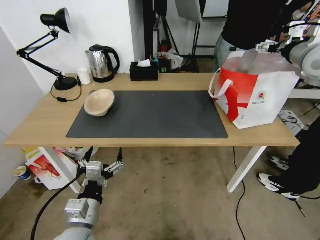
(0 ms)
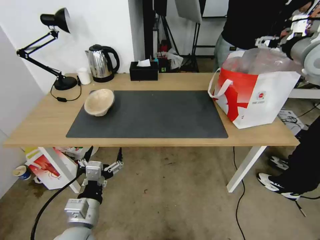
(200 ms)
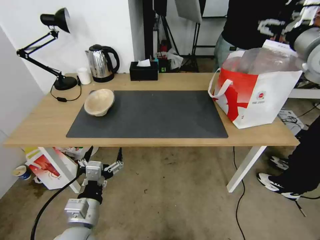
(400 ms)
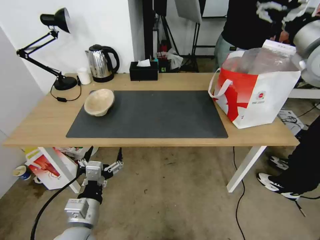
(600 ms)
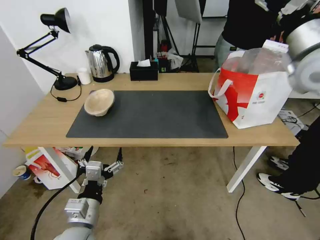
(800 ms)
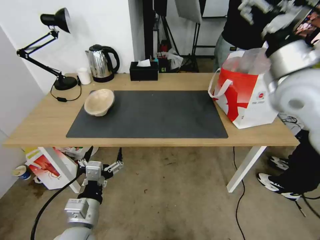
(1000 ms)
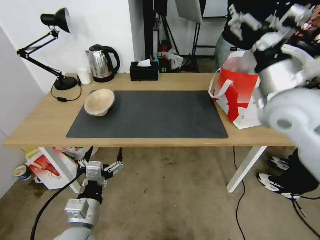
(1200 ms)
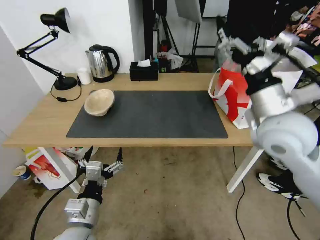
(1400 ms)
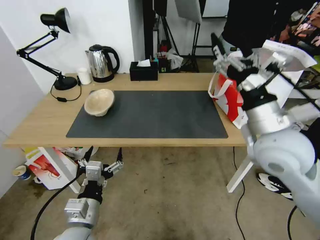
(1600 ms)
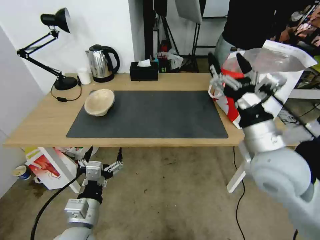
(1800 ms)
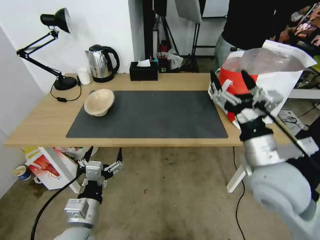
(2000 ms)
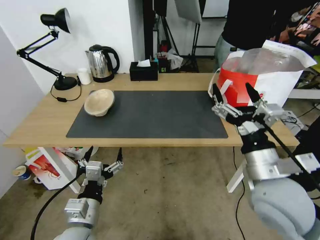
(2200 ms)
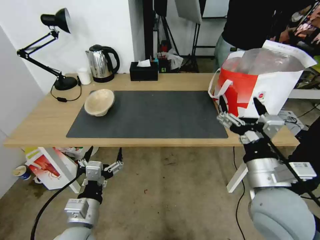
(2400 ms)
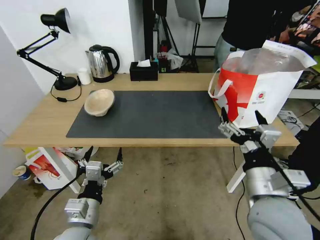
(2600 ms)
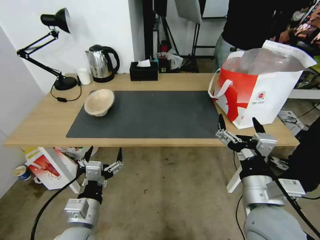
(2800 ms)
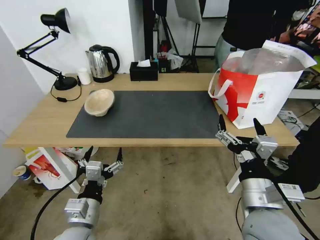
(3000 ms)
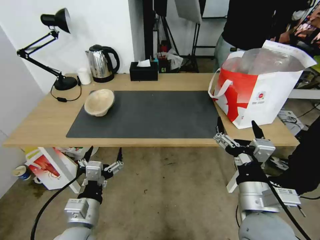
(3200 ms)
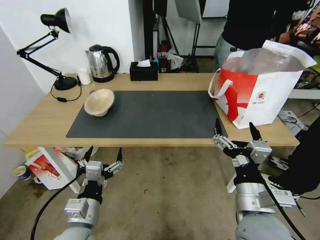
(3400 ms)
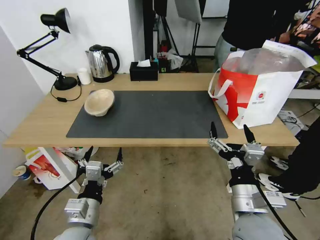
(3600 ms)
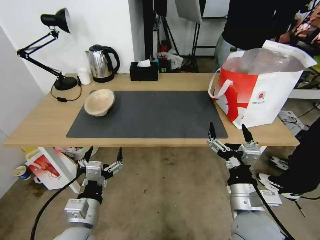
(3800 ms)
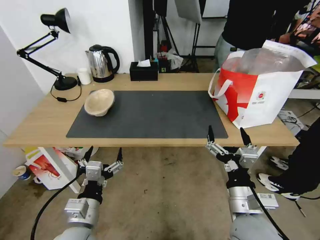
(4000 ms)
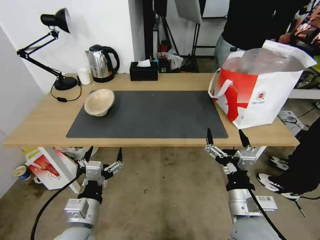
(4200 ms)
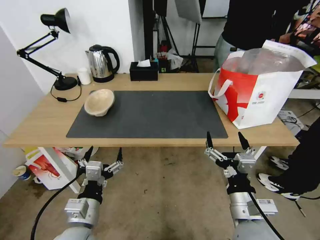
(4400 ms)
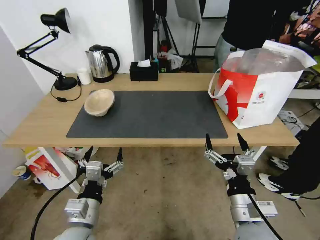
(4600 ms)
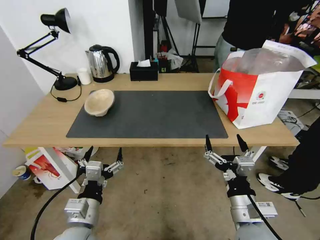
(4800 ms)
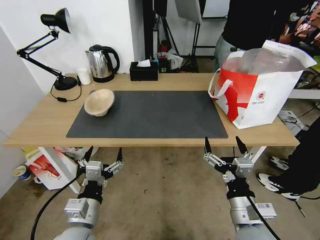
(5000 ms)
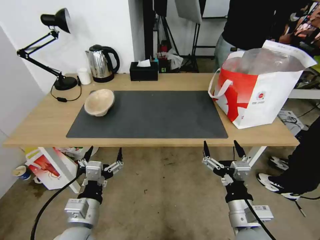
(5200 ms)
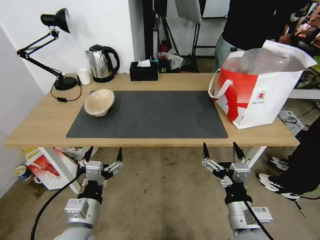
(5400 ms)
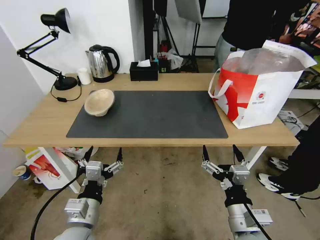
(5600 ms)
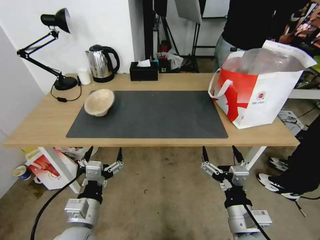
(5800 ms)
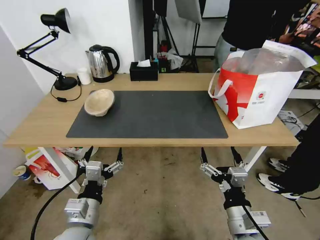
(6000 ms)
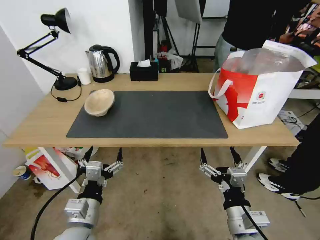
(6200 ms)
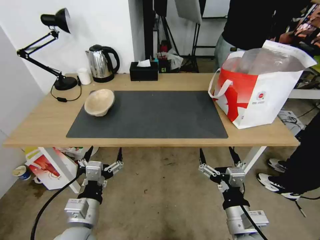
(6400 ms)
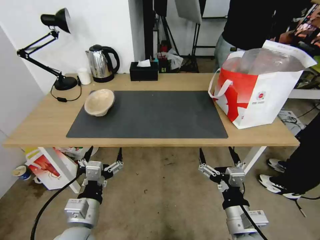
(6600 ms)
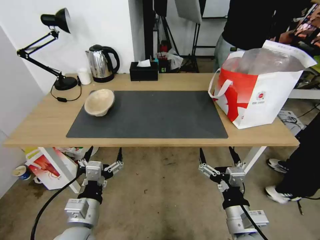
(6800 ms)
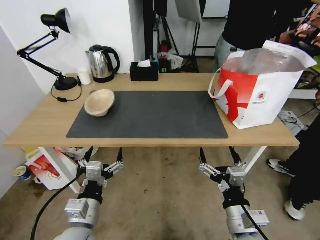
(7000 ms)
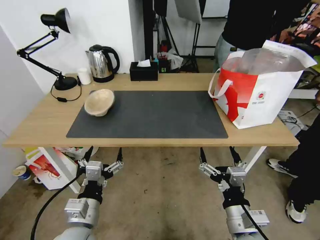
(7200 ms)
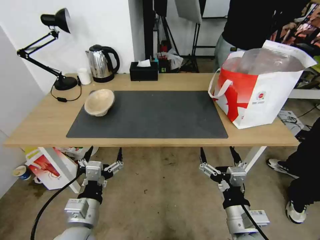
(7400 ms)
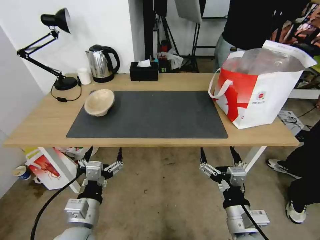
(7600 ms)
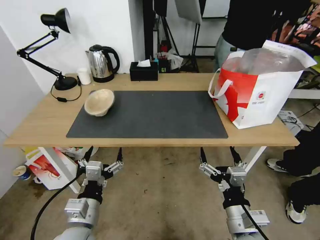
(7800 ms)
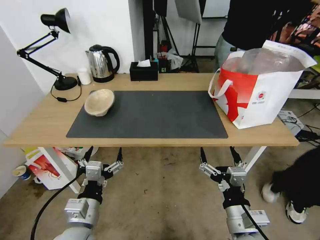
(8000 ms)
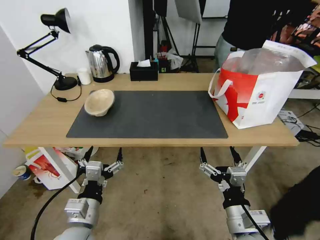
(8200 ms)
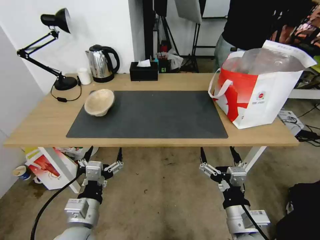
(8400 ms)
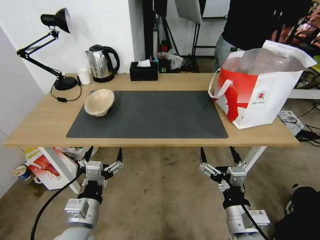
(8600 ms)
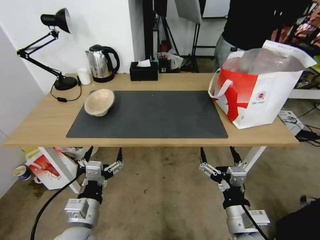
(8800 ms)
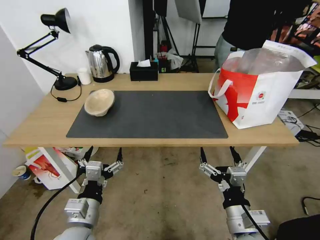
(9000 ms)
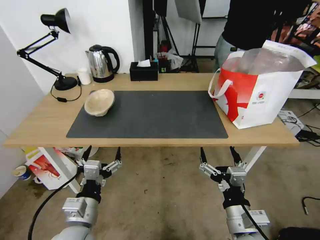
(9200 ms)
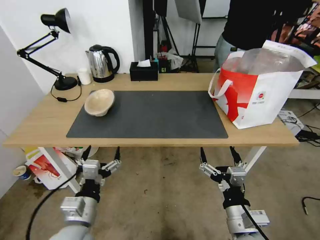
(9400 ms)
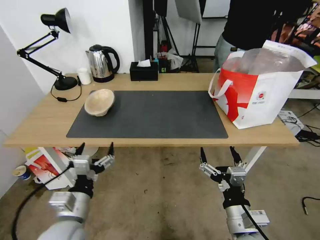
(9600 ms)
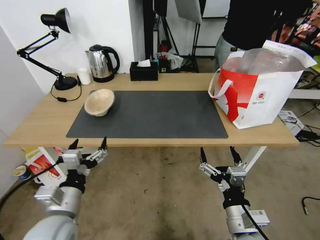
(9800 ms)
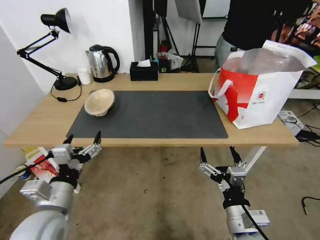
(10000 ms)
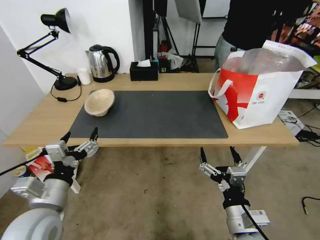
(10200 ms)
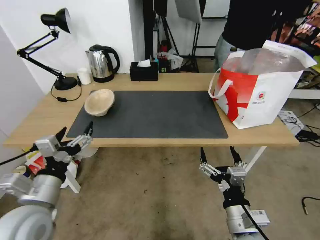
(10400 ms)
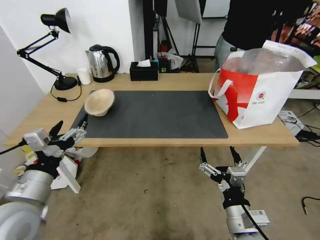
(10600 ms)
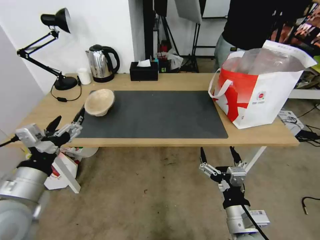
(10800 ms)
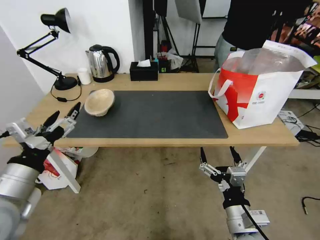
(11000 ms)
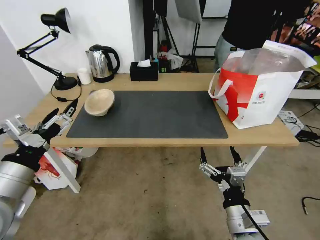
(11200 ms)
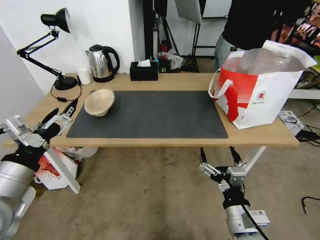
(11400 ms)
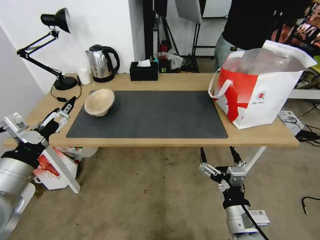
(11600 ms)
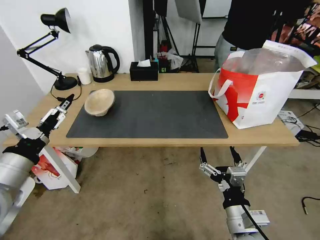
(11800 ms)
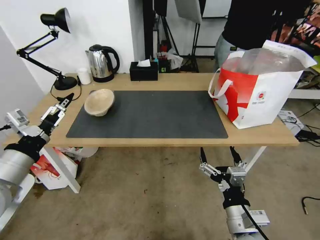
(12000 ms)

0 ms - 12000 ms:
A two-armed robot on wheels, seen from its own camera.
Task of the whole recording: Pick up the trash from the table and place it into the takeout bag.
0 ms - 1600 ms: The right gripper travels backward, to the left and downward by roughly 30 cm.
1600 ms - 3000 ms: The right gripper moves backward and downward, roughly 15 cm.
3000 ms - 4400 ms: The right gripper is displaced downward by some 5 cm.
4400 ms - 6000 ms: The grippers make only small movements.
6000 ms - 9000 ms: Both grippers stay put.
9000 ms - 10400 ms: The left gripper moves upward and to the left, roughly 10 cm.
10400 ms - 12000 ms: The left gripper is displaced upward and to the left by roughly 10 cm.

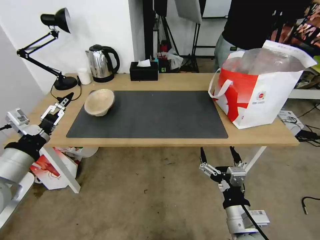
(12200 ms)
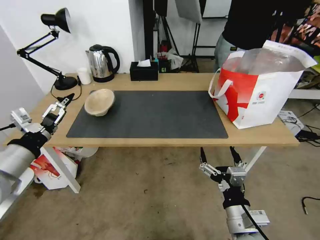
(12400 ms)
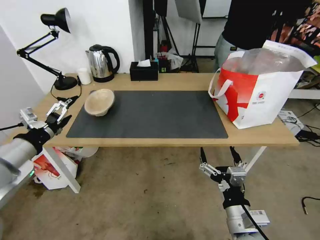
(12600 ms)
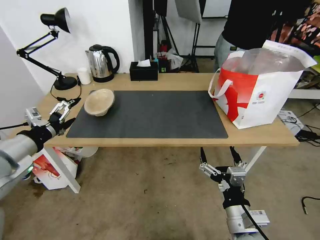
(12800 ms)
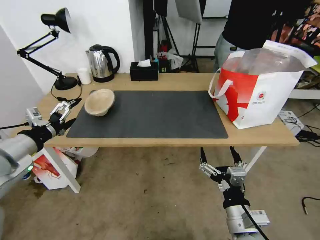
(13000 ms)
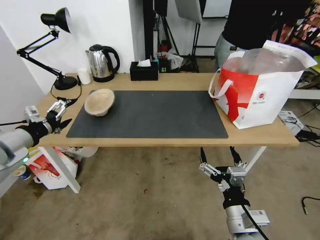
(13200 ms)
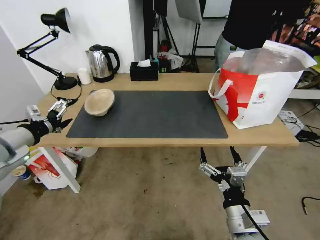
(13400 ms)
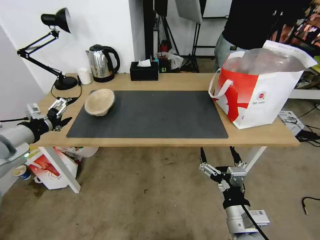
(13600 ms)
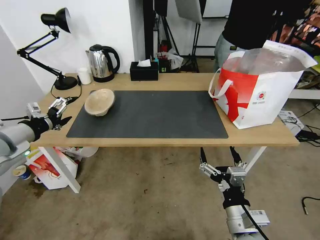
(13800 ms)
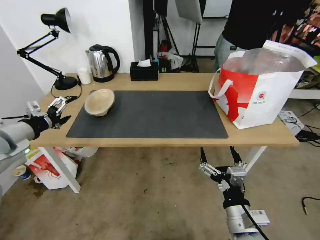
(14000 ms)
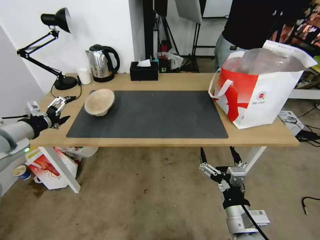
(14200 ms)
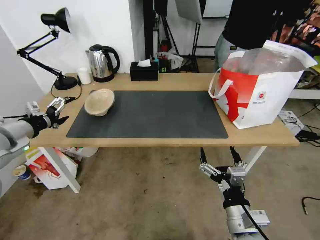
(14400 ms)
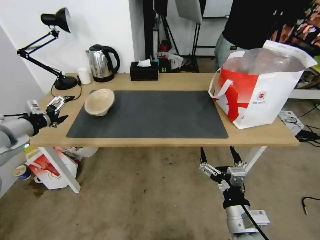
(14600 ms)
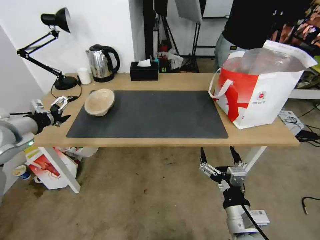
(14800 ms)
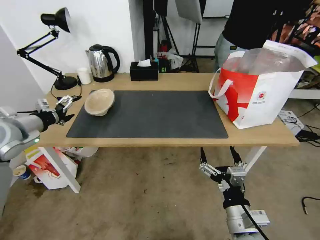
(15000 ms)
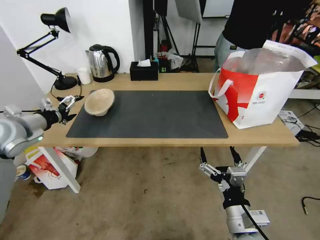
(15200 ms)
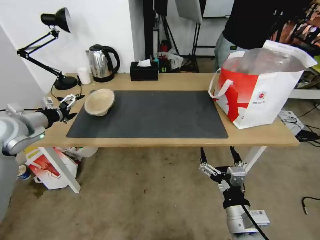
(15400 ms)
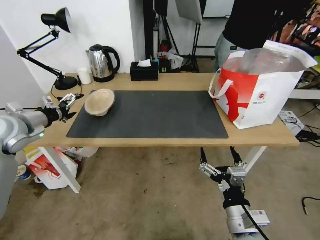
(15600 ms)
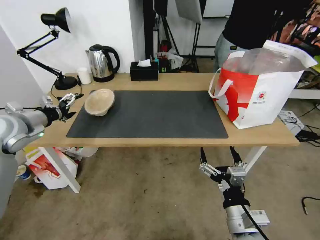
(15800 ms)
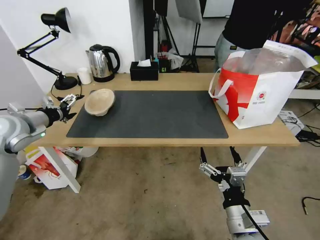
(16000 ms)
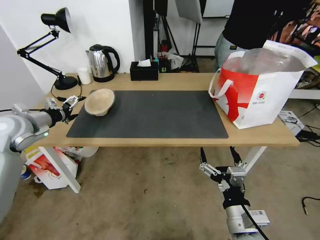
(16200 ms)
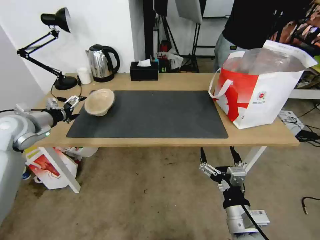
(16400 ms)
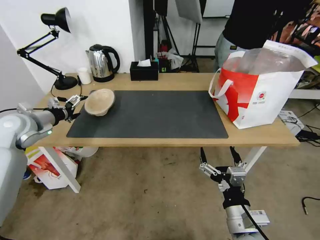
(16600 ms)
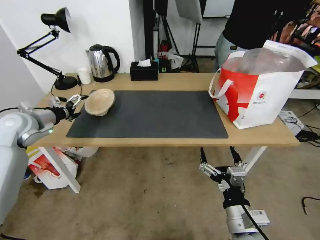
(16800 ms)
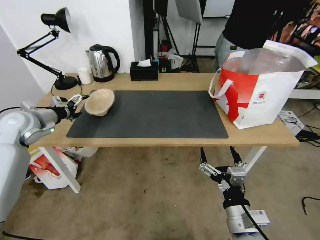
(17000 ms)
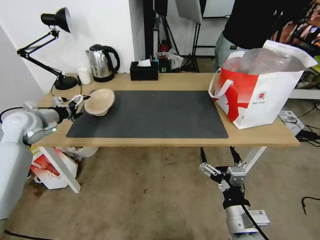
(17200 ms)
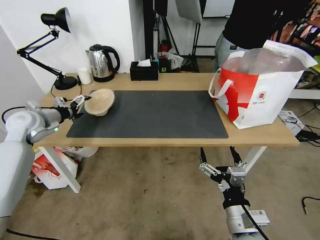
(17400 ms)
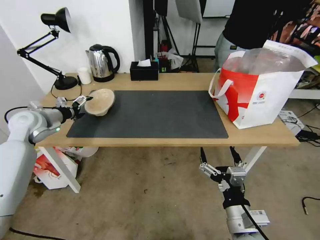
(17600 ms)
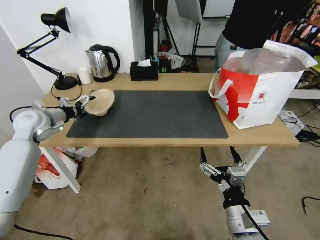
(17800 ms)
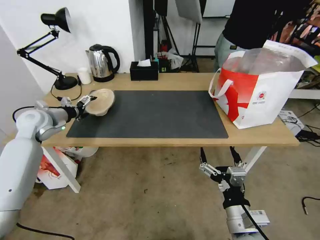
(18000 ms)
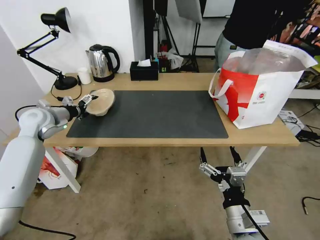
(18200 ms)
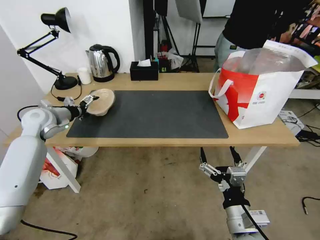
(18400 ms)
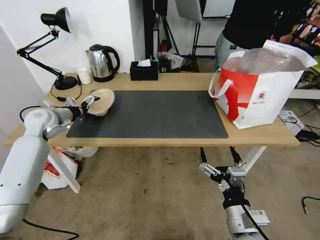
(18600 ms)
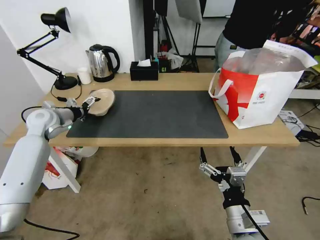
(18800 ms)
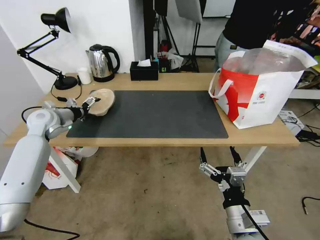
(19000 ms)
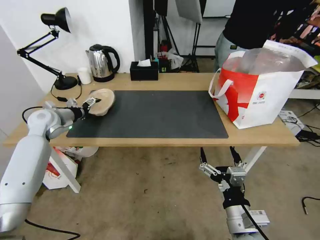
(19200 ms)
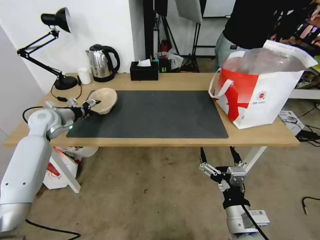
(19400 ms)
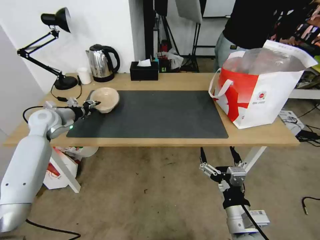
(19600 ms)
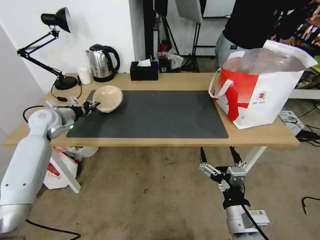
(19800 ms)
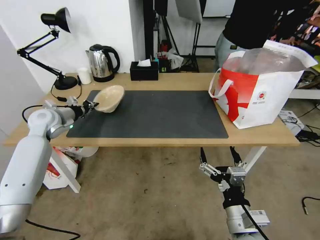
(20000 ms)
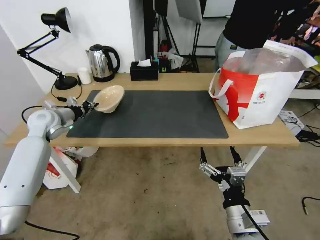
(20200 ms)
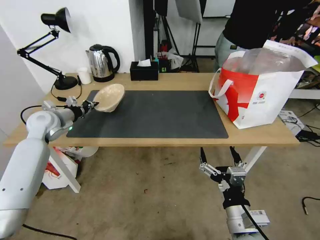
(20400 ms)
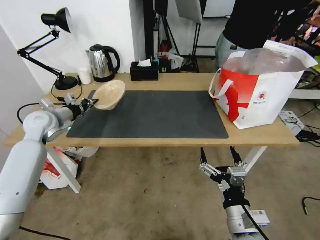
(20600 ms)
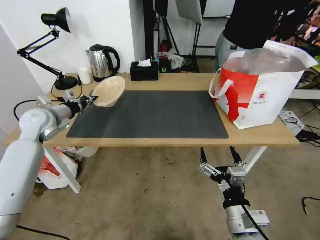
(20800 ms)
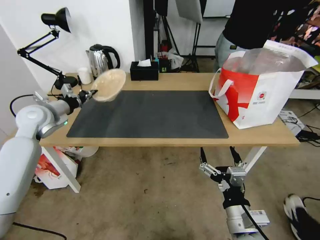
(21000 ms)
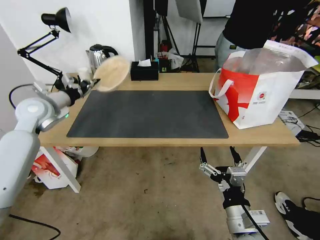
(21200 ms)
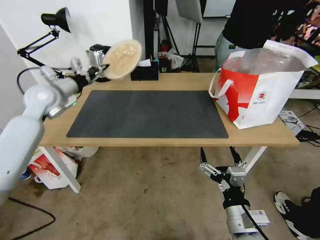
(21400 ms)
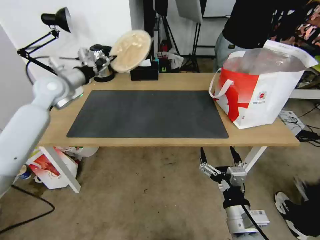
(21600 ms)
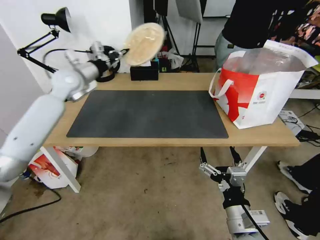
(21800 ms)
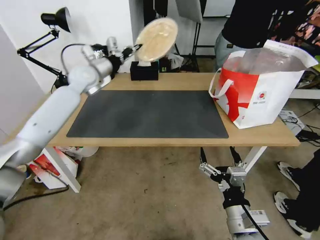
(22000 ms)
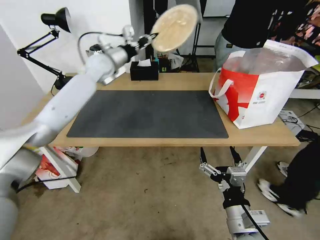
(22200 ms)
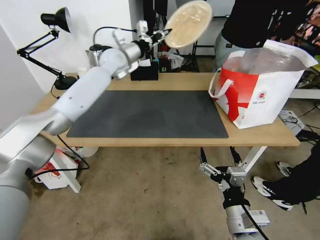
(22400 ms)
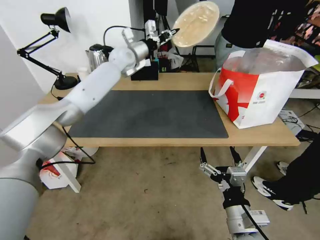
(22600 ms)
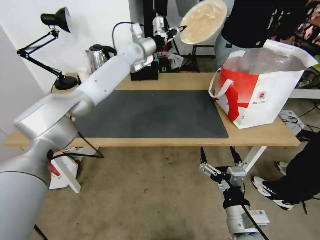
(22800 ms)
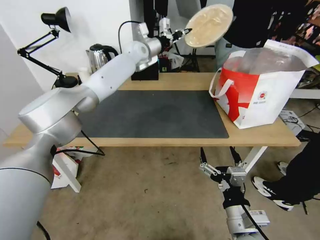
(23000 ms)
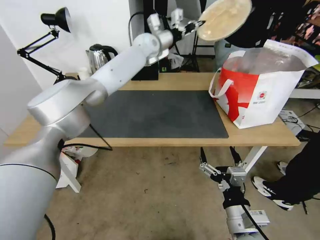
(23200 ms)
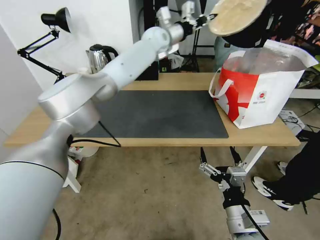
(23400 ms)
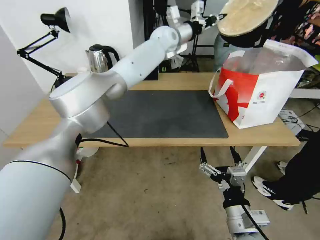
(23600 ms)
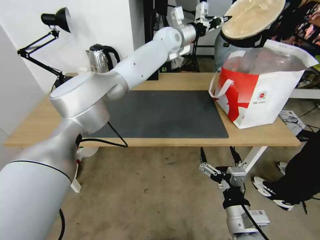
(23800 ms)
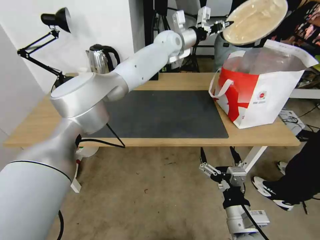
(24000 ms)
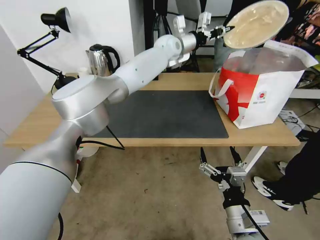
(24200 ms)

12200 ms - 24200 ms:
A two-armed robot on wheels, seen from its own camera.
Task of the whole recording: Pick up the trash from the table and place it into the takeout bag.
12200 ms - 13800 ms: The left gripper goes some 15 cm forward and to the left.
13800 ms - 15200 ms: The left gripper shifts about 5 cm forward.
15200 ms - 16600 ms: The grippers make only small movements.
16600 ms - 18200 ms: The left gripper heads forward, covering approximately 5 cm.
18200 ms - 19800 ms: The left gripper closes up.
19800 ms - 21200 ms: The left gripper heads upward, covering approximately 5 cm.
21200 ms - 22600 ms: The left gripper heads to the right and forward, covering some 30 cm.
22600 ms - 24200 ms: The left gripper shifts approximately 15 cm to the right.
